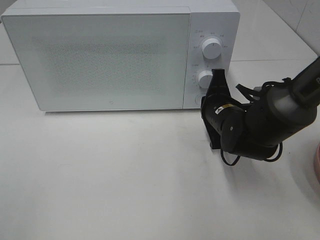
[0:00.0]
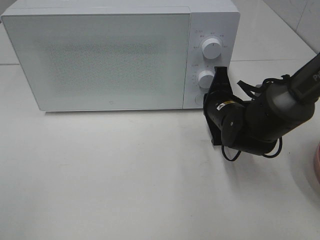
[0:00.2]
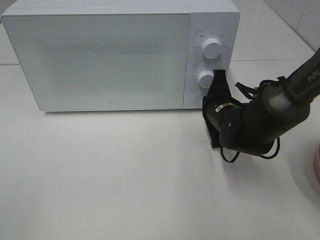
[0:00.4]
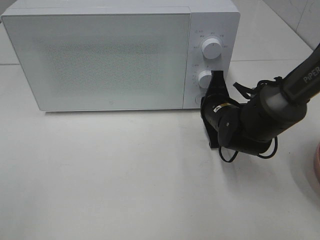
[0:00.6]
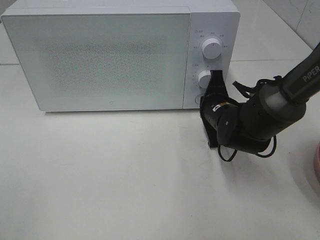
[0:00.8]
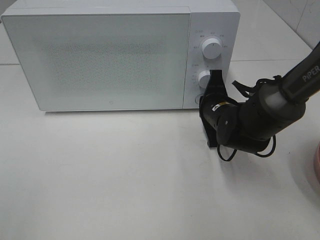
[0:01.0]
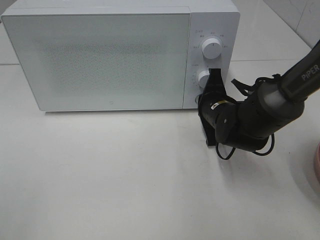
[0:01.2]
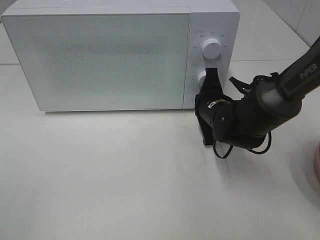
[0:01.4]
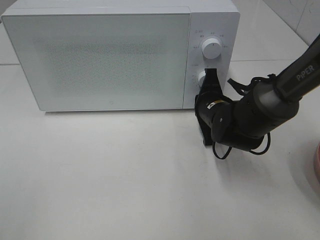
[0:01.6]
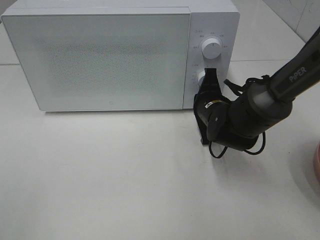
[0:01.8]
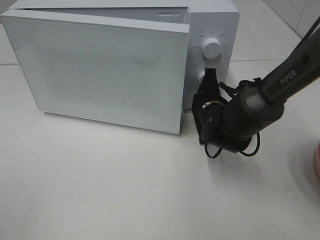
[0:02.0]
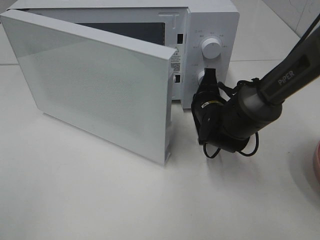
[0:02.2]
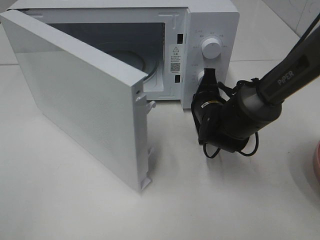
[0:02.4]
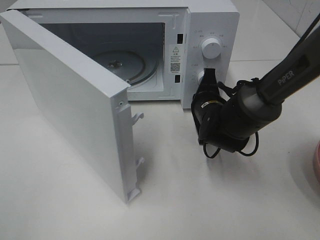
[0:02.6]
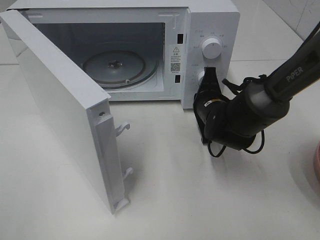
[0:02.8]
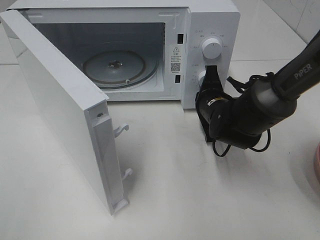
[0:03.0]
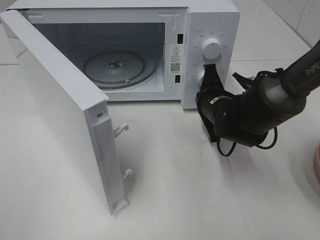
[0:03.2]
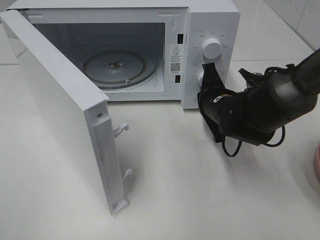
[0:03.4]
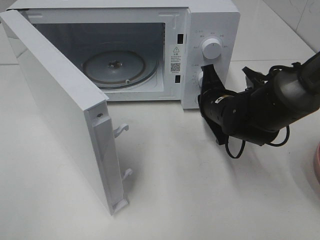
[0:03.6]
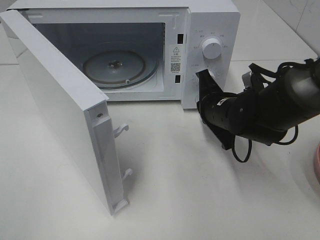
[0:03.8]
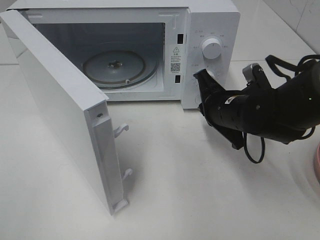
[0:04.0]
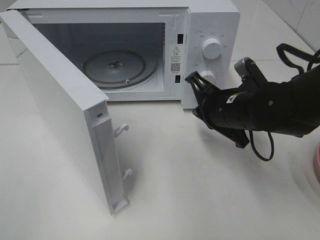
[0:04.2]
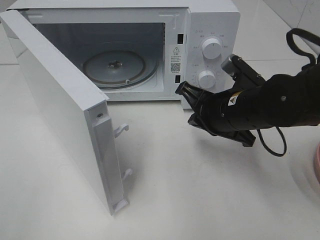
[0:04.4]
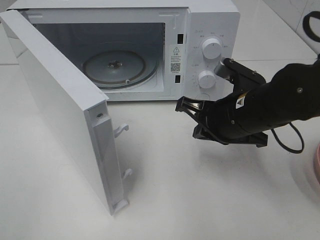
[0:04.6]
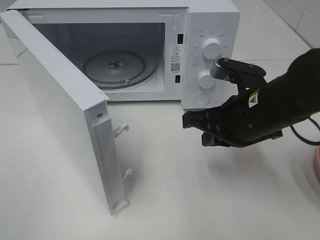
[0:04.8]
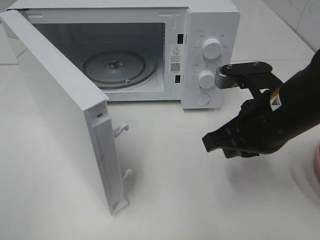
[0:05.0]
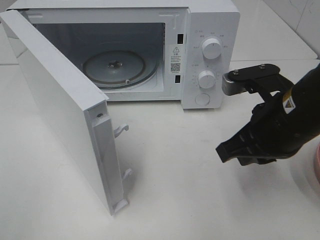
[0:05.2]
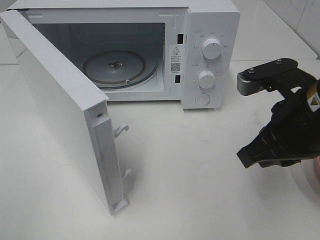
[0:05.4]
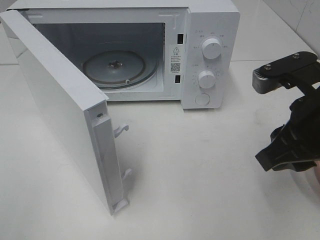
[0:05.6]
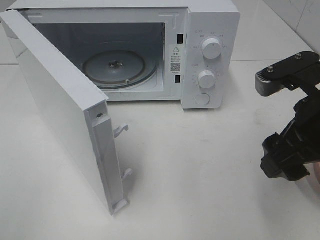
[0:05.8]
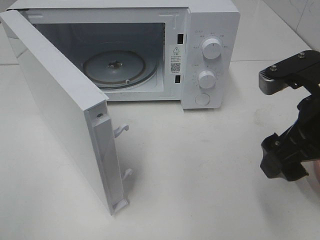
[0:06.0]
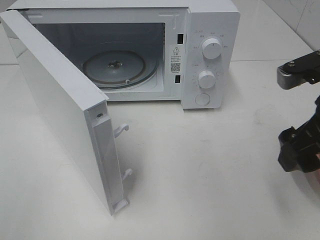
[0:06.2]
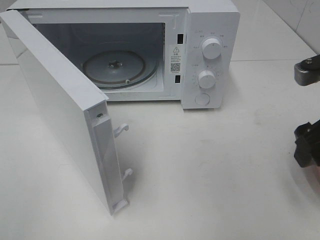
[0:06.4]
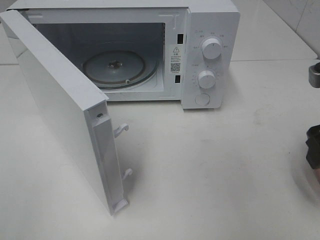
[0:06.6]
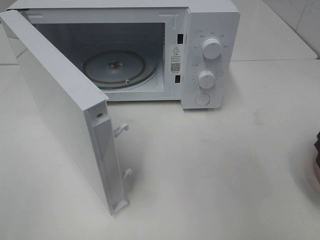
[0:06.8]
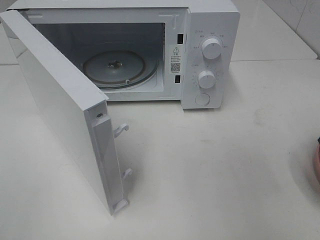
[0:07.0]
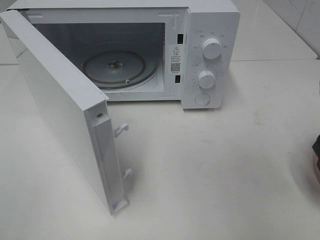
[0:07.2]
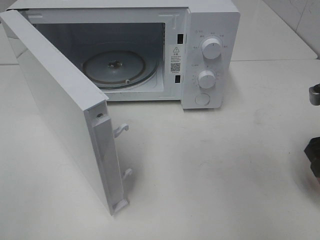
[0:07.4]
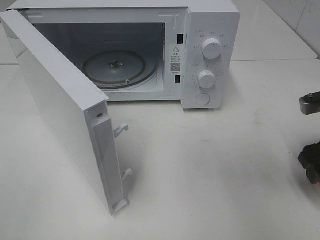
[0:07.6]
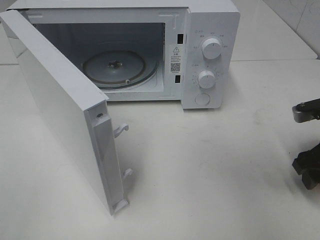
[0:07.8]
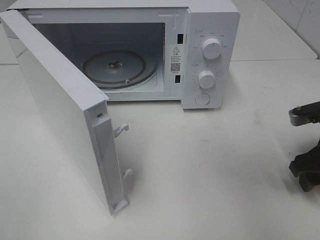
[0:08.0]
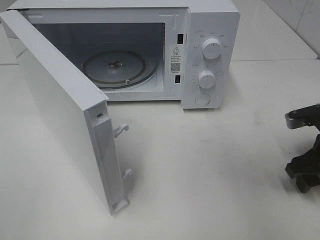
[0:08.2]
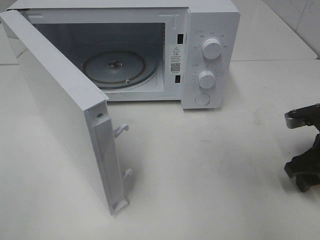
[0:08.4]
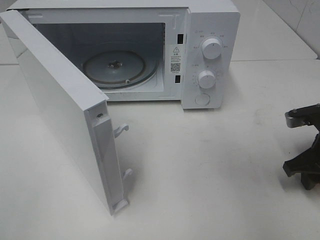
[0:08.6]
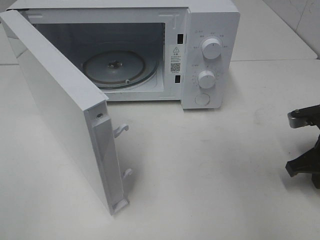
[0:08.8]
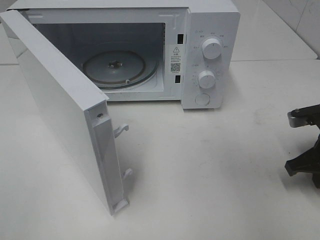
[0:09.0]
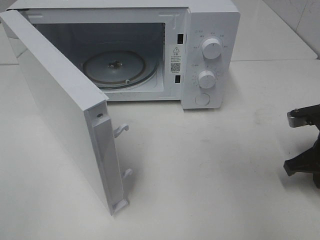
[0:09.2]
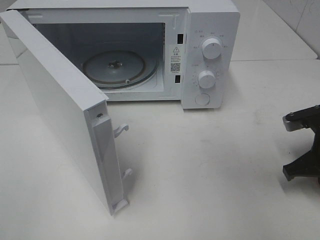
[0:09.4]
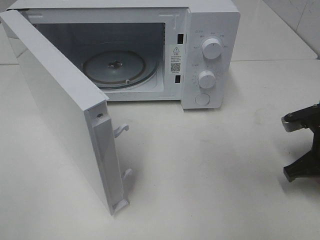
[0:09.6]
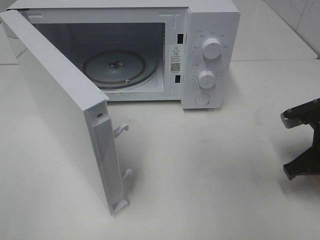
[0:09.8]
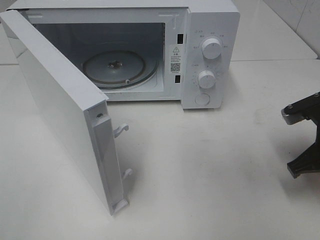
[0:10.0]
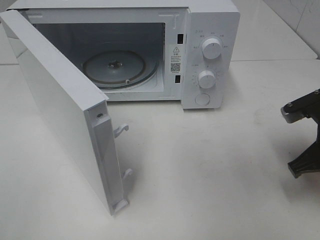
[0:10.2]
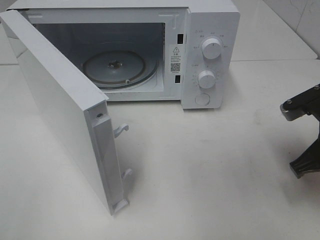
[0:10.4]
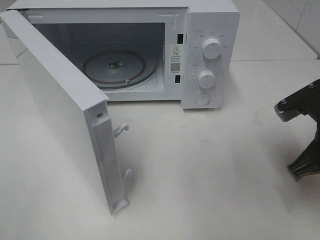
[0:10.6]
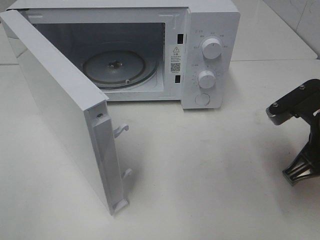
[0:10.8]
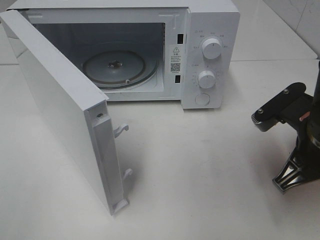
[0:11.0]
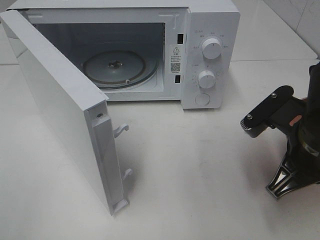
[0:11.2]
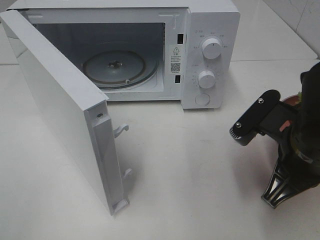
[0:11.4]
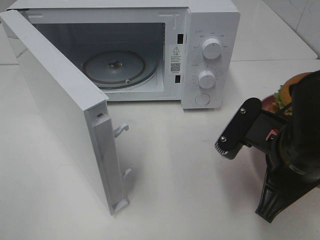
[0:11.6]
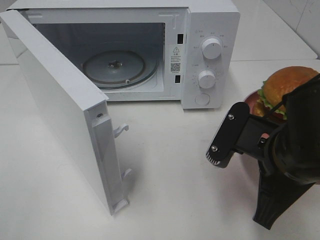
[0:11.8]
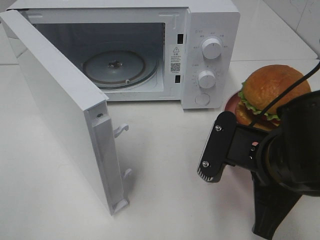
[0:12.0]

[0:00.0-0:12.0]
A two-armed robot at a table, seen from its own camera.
Task of the whole recording: Heat the burger.
Step, 0:00.0 to 0:03.8: Right hand: press the switch.
Step, 0:04.0 to 0:09.4: Right hand: grab the plate with the hamburger.
0:00.0 to 0:01.6: The grippers make only small movements.
0:03.0 to 0:04.4: The right gripper heads backward and upward, covering roughly 10 cm.
0:04.4 to 0:06.0: The right gripper is displaced backward, upward and to the right by roughly 15 cm, and opens its fingers.
0:06.0 to 0:07.6: The right gripper heads to the right, downward and forward, covering some 15 cm.
0:07.6 to 0:09.0: The right gripper closes.
0:09.0 to 0:10.4: The right gripper shifts about 5 cm upward.
0:10.4 to 0:12.0: The right gripper travels to the left and backward by some 15 cm.

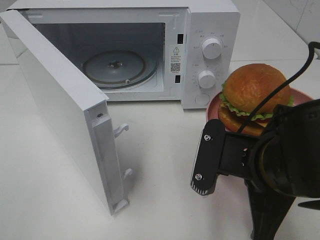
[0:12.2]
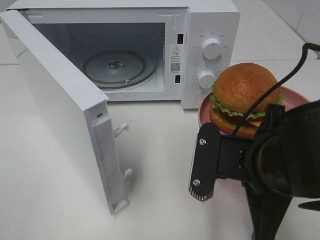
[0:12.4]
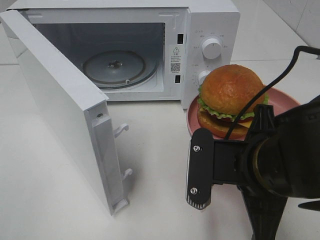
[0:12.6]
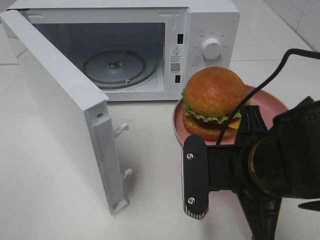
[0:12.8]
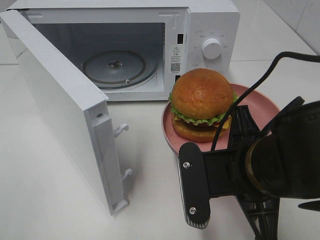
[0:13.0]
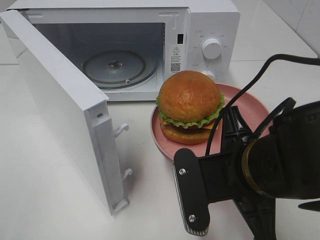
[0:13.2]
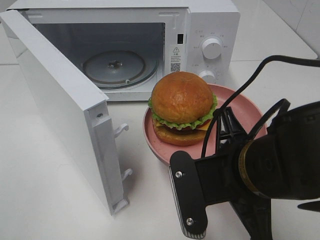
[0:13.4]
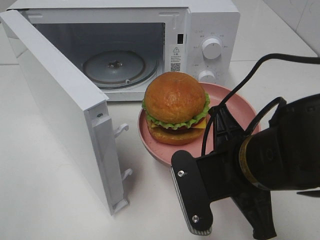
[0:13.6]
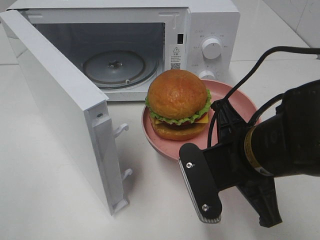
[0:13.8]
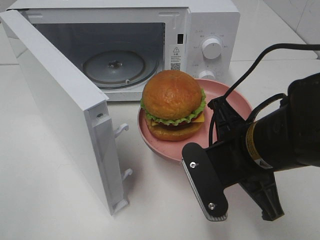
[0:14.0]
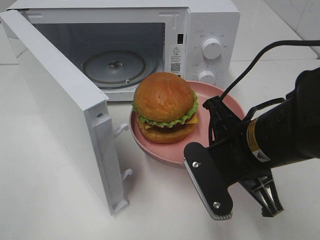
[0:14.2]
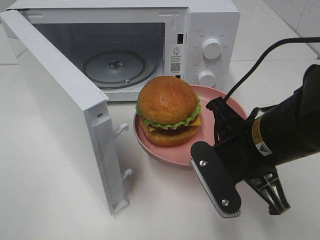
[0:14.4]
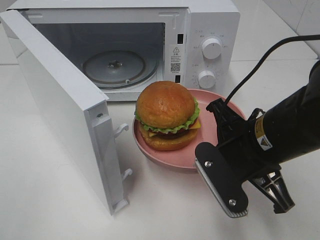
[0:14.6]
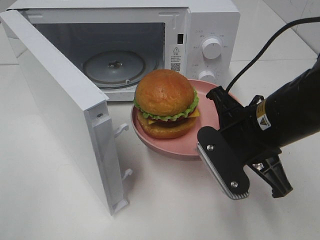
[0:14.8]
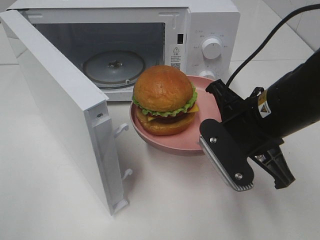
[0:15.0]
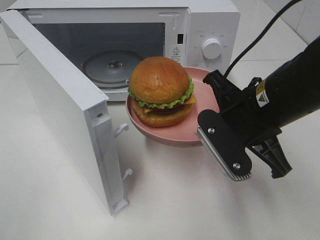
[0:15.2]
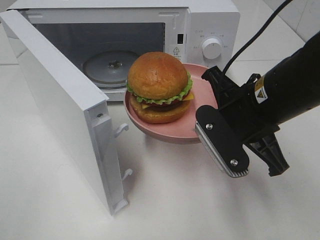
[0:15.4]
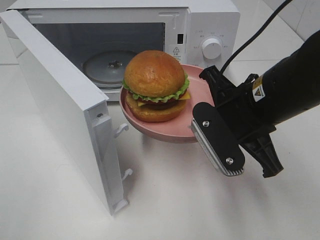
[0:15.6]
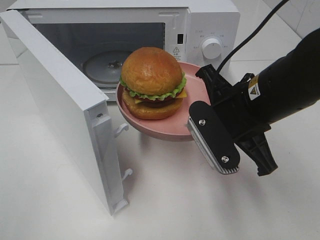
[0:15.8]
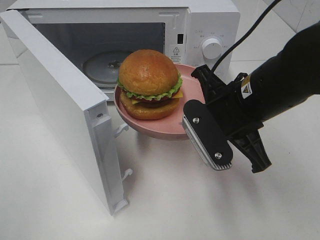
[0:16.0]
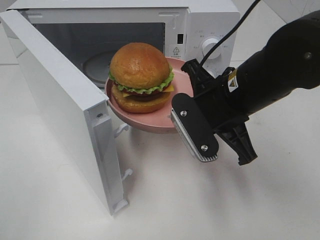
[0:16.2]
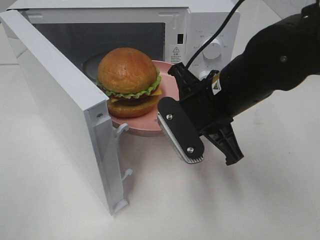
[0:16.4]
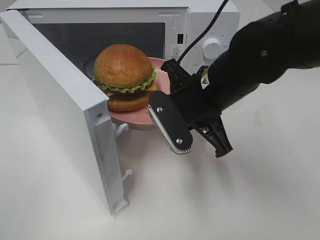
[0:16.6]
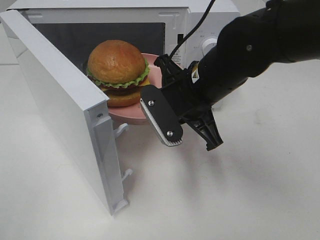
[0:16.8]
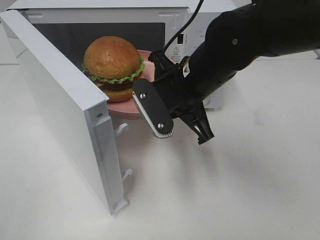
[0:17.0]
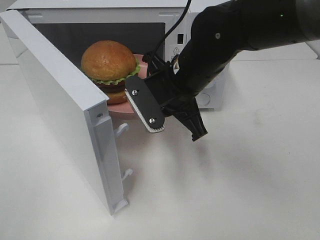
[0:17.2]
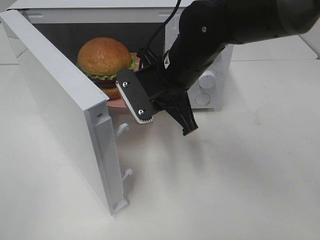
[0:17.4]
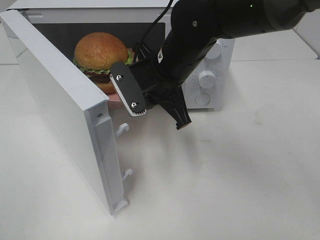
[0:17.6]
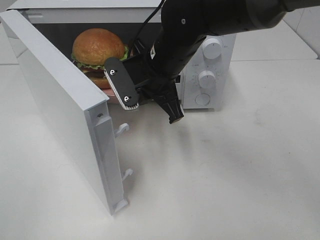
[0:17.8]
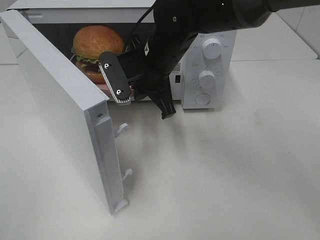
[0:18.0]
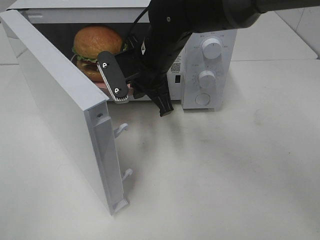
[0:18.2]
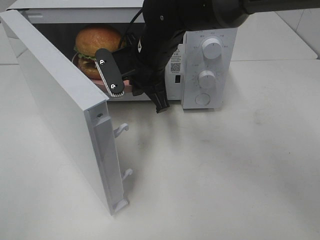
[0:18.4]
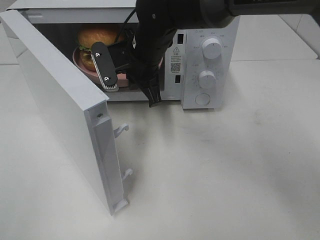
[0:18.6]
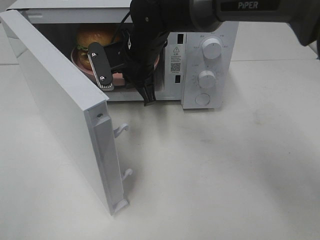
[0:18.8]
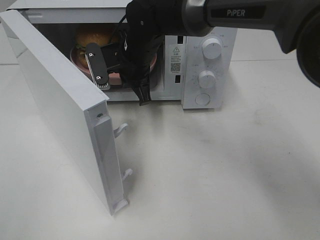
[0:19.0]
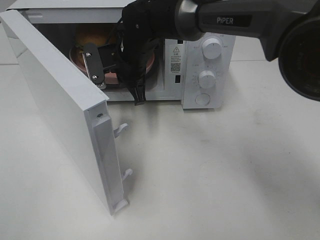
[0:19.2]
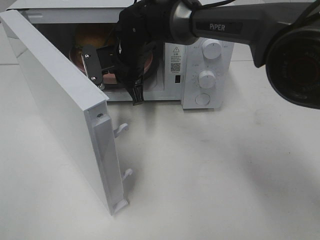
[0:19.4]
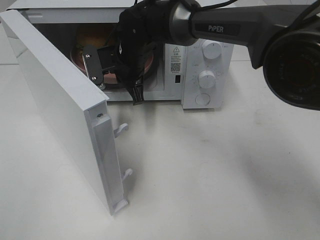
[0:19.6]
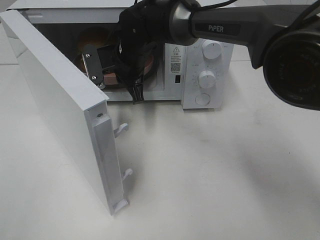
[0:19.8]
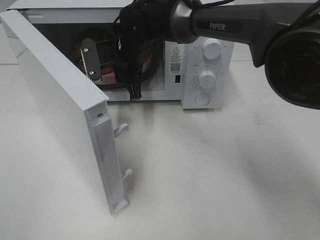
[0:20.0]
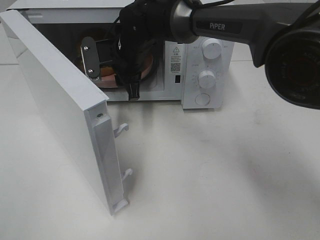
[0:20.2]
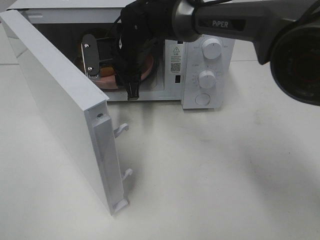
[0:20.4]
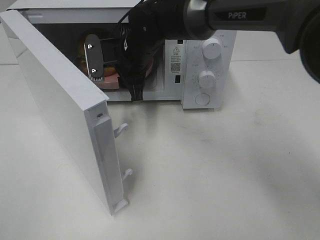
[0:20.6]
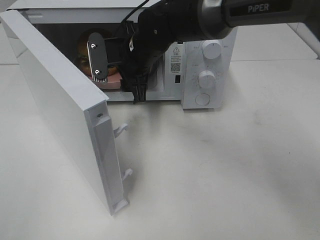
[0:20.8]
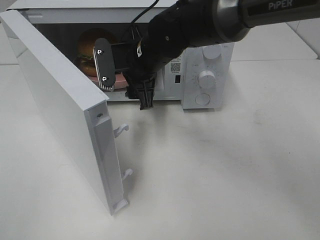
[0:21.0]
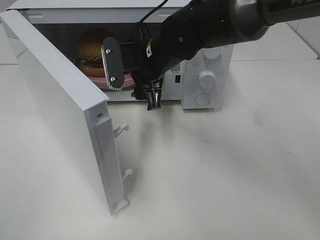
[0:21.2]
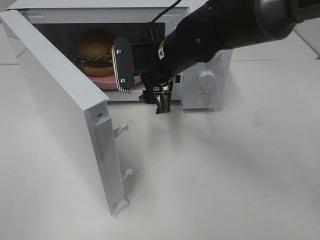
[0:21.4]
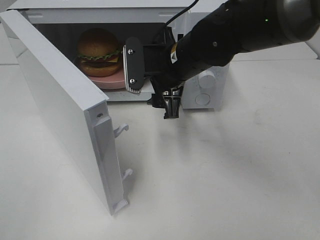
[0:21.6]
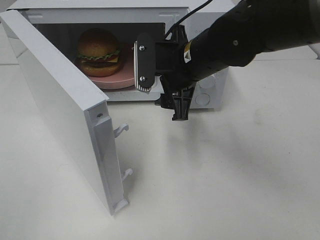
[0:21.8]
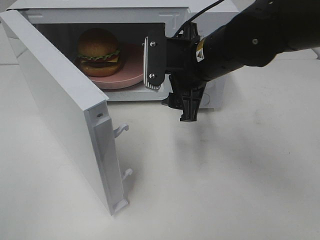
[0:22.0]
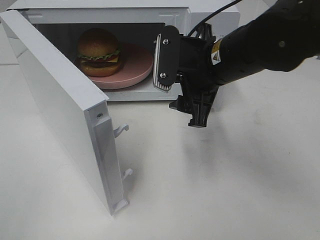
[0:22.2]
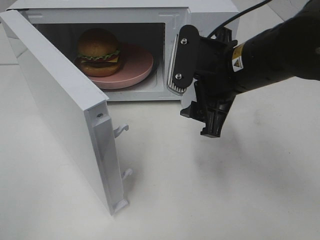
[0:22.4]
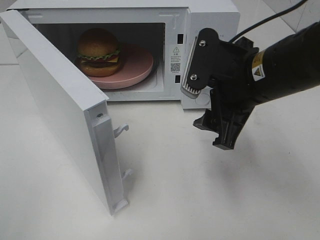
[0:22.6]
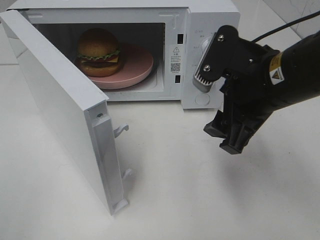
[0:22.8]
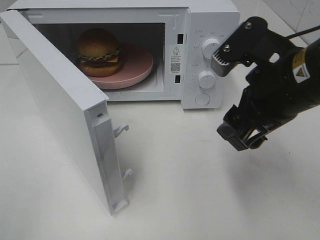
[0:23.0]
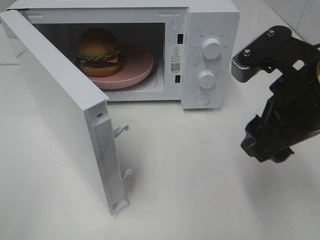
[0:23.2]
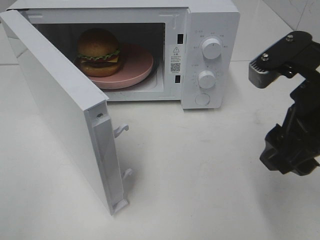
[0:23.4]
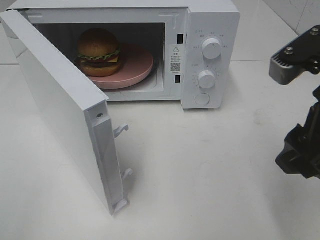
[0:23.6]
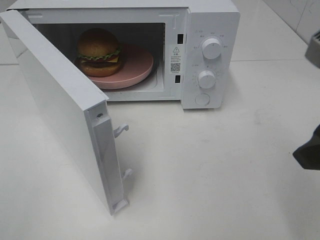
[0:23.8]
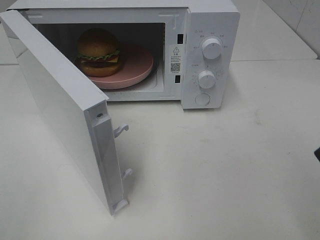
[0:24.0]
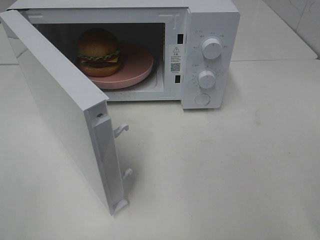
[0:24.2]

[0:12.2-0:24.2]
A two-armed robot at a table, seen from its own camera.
Task of the whole recording: Heat the burger.
Step, 0:12.2 to 0:20.6: Right hand: place the plate in the microwave.
0:13.8 to 0:15.2: The right gripper heads forward, covering roughly 5 cm.
0:15.2 to 0:16.6: The right gripper is displaced to the left by roughly 5 cm.
0:16.6 to 0:18.2: The right gripper heads forward and to the left, covering approximately 10 cm.
0:18.2 to 0:19.8: The right gripper goes roughly 5 cm forward.
0:19.8 to 0:21.2: The right gripper travels backward and to the right by roughly 10 cm, and opens.
0:21.2 to 0:22.6: The right gripper shifts some 20 cm backward and to the right.
0:22.6 to 0:24.2: The right gripper moves backward, to the right and upward, about 20 cm.
